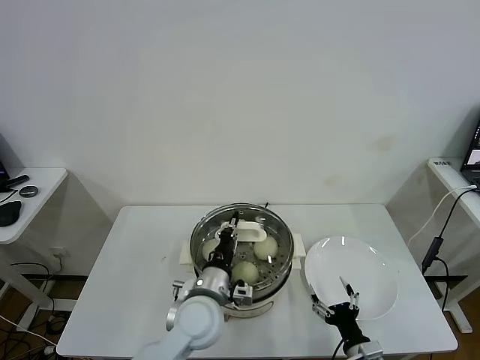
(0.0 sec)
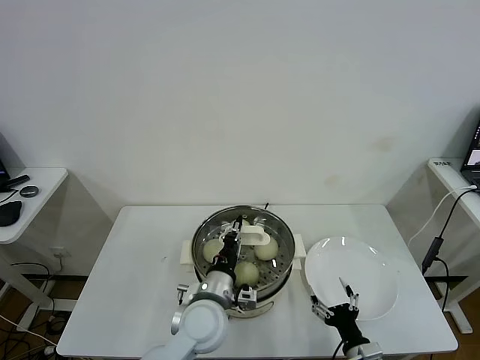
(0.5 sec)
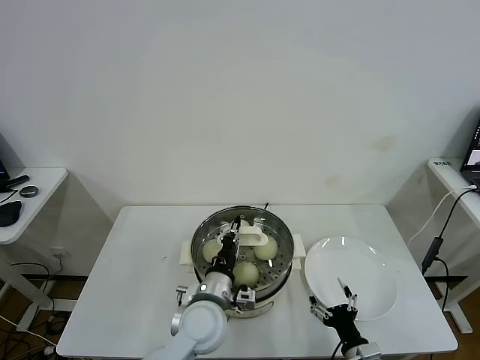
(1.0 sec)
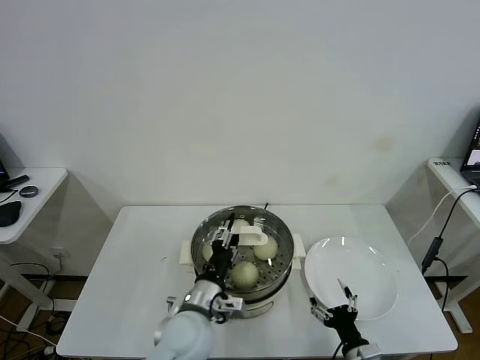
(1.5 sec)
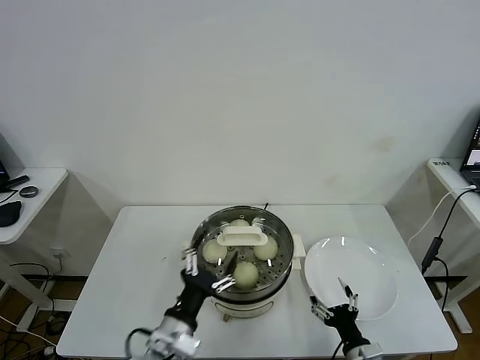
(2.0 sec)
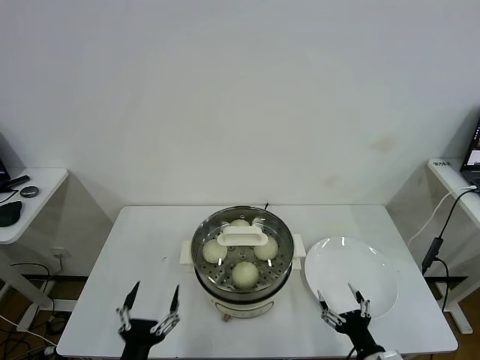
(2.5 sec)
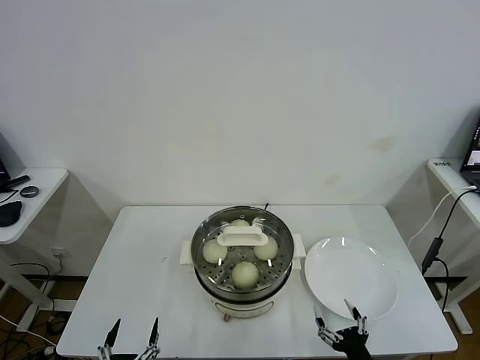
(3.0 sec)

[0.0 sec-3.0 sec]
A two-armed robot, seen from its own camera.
Task of the whole recording: take steamed baozi put them in steamer.
0.0 sec to 1.5 sec: The left gripper opens its fingers.
1.5 sec to 3.0 sec: The right gripper heads backward, covering approximately 5 cm; the left gripper shifts some 30 cm backward, to the left and downward, and opens up.

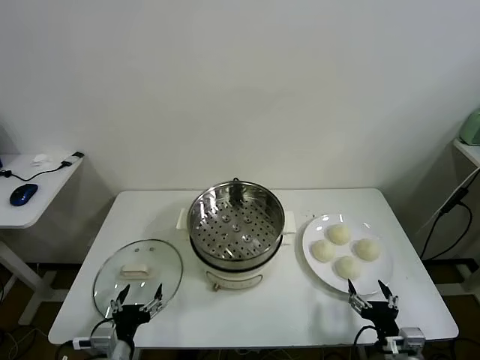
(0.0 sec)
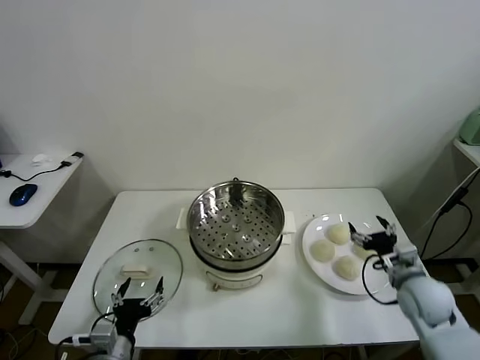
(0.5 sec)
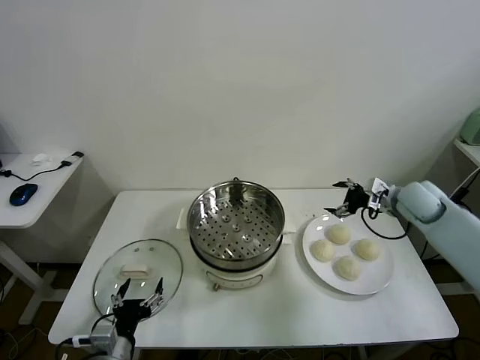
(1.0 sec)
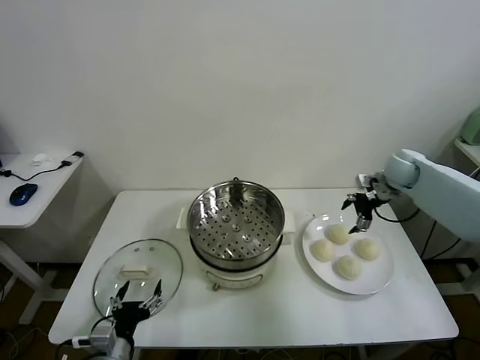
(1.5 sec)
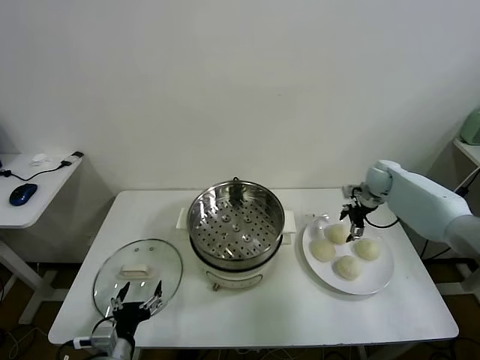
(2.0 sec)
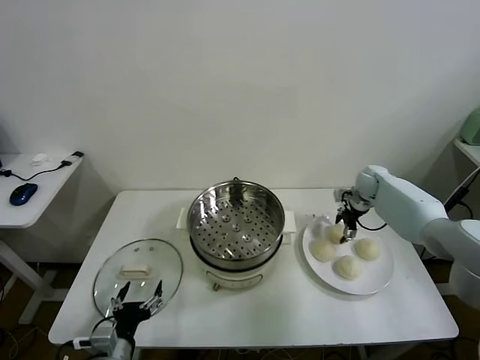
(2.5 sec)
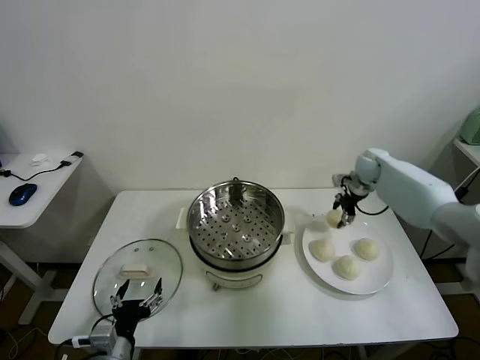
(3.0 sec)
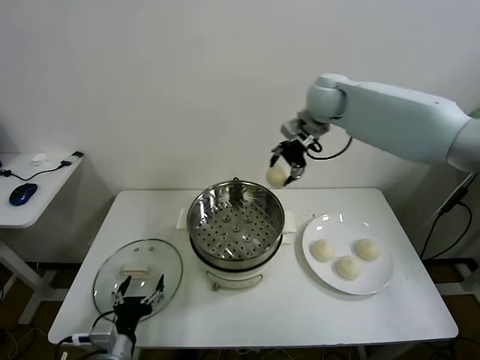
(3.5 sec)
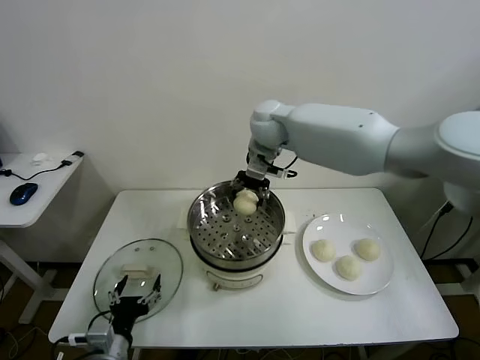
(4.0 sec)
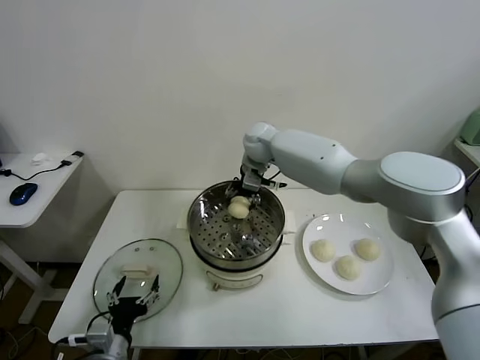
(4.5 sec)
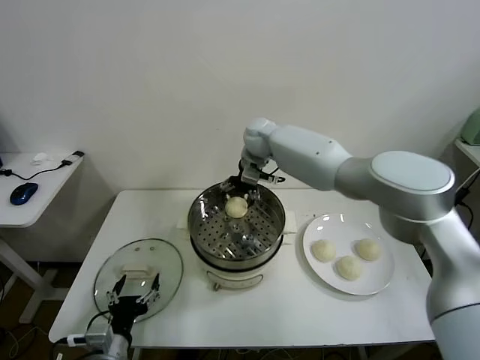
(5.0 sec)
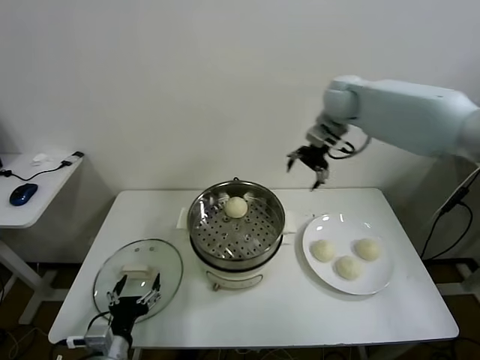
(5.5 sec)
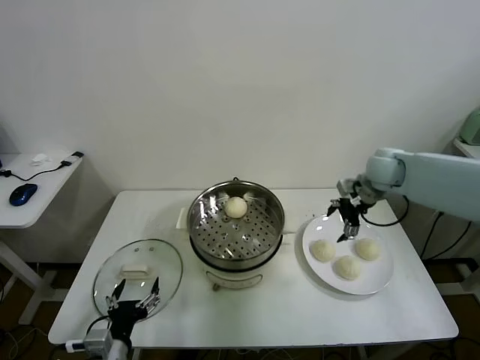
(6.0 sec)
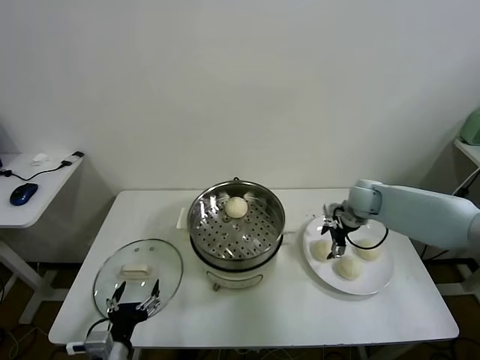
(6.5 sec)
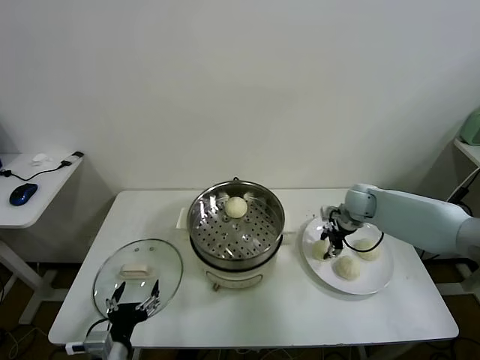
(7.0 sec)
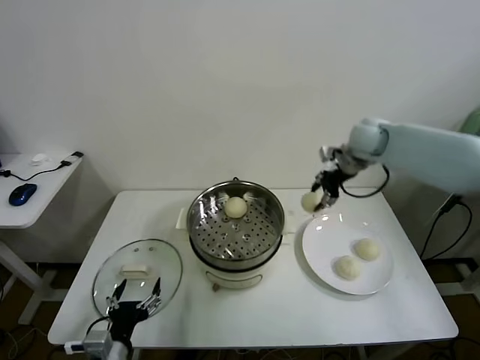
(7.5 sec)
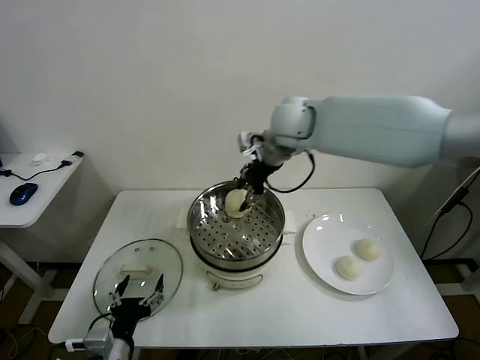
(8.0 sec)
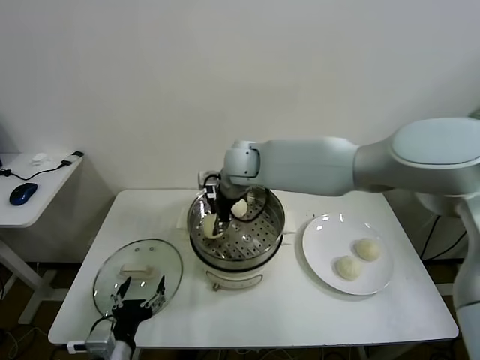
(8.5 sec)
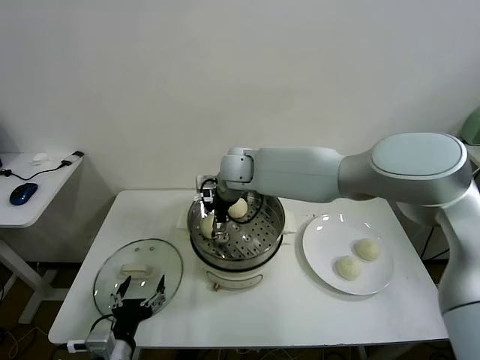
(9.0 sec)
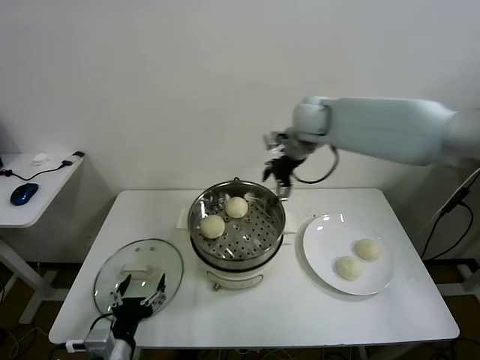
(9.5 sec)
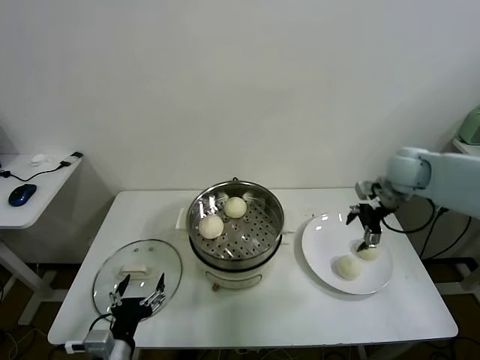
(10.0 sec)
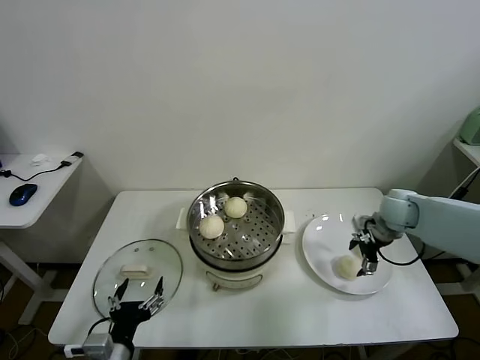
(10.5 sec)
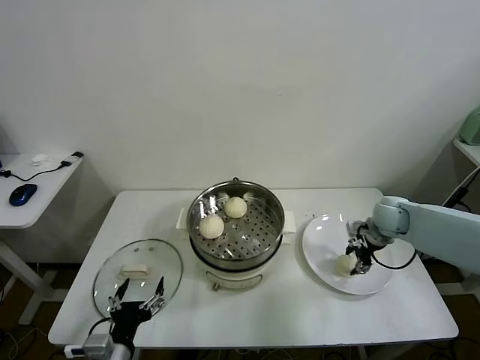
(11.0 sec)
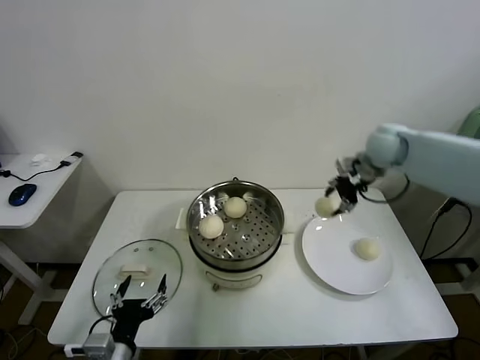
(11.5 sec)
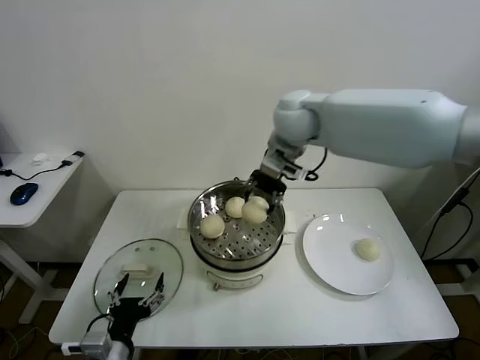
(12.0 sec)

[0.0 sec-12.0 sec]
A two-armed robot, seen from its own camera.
Task of the whole recording: take steamed baozi put them in steamer.
Step, 0.0 sec to 2.5 sec: Grasp the baozi in the plate with right gripper.
Step, 3.0 sec to 5.0 sec: Place the baozi on the steamer with right gripper.
Step, 5.5 sec to 7.0 sec: Grasp the baozi in the plate with right gripper.
Step, 7.5 sec to 9.0 sec: Place the baozi on the steamer with right gripper.
Step, 9.5 sec to 11.0 sec: Grasp the baozi in the plate with right gripper.
2.0 sec to 4.0 sec: The right gripper is displaced to the left and upward by roughly 35 cm, and closes up.
4.0 sec to 6.0 sec: The right gripper shifts approximately 30 cm to the right, and opens its fingers.
6.0 sec to 8.0 sec: The right gripper goes approximately 30 cm to the left and upward, and closes its fingers.
8.0 sec to 10.0 sec: The right gripper heads to the right, covering some 30 cm, and opens its fingers.
10.0 sec to 12.0 sec: The right gripper travels to the left and upward by approximately 30 cm, and closes up.

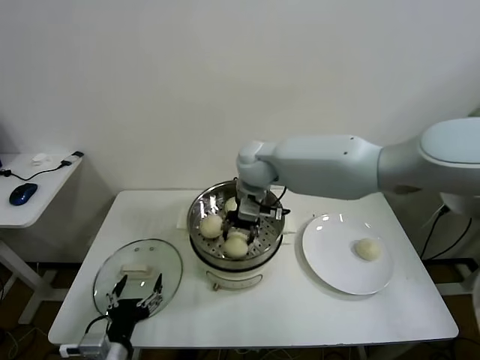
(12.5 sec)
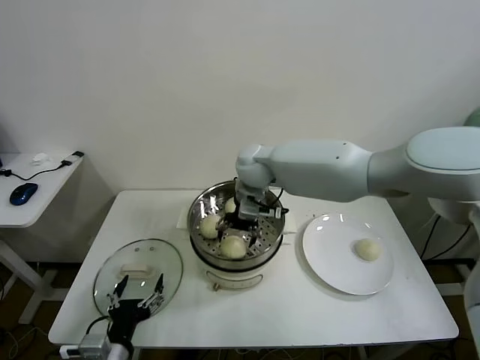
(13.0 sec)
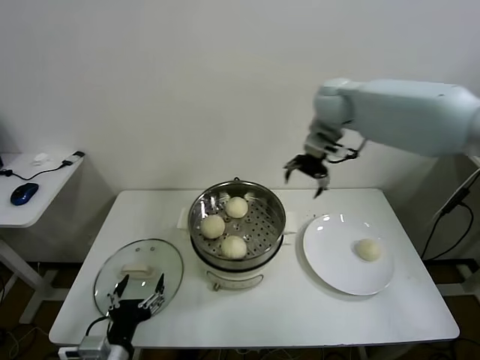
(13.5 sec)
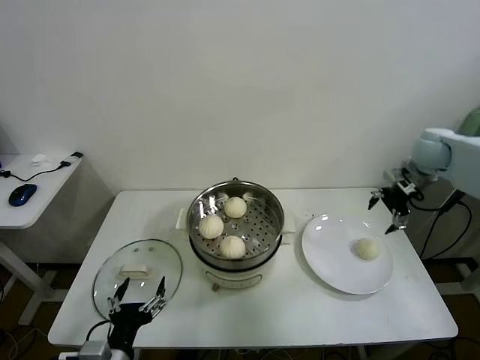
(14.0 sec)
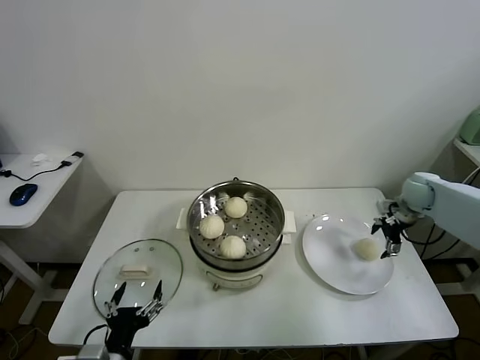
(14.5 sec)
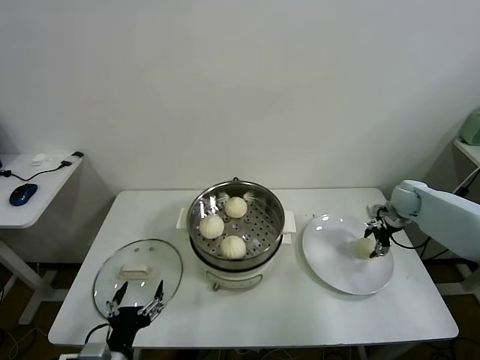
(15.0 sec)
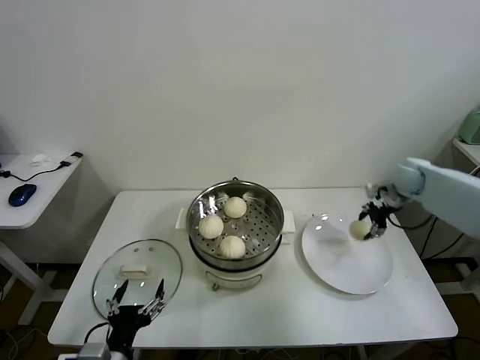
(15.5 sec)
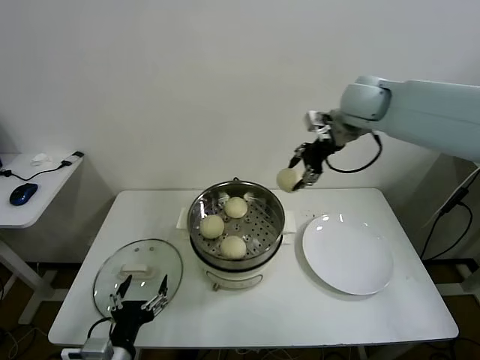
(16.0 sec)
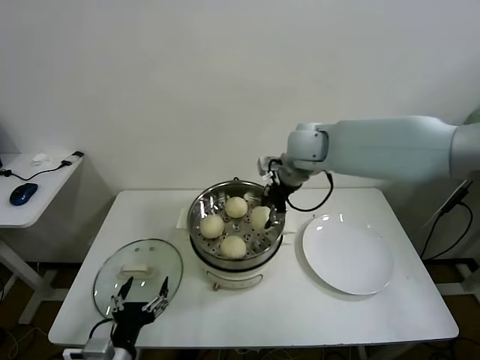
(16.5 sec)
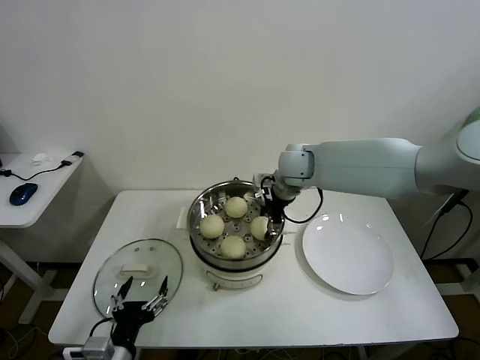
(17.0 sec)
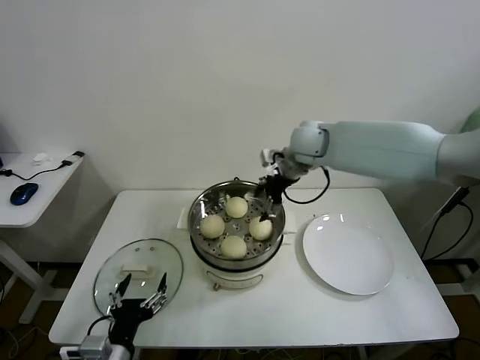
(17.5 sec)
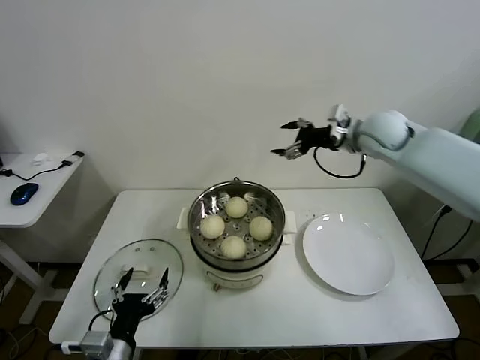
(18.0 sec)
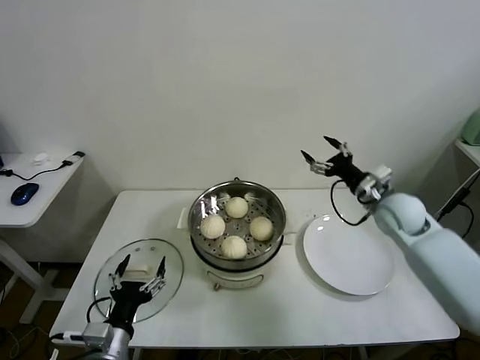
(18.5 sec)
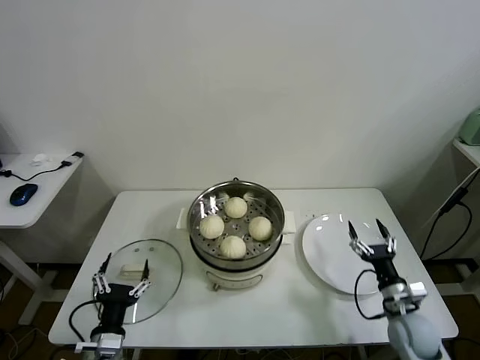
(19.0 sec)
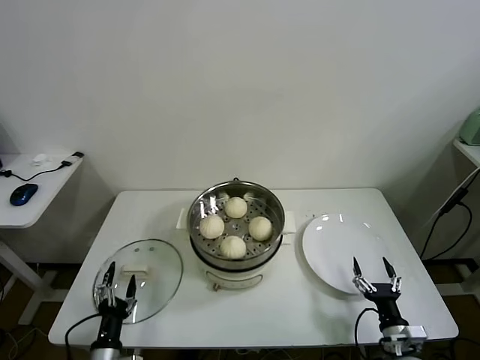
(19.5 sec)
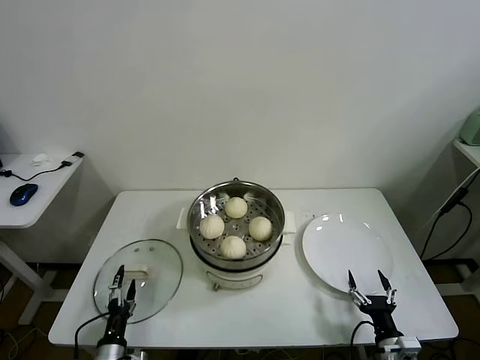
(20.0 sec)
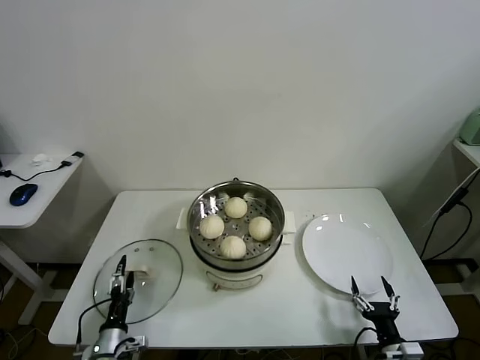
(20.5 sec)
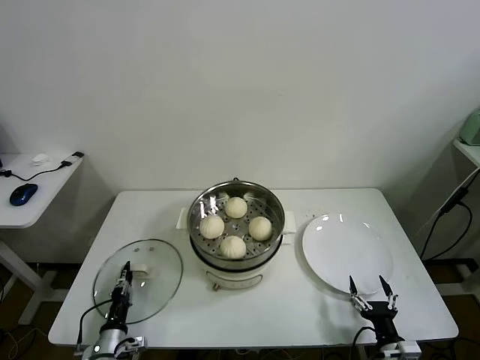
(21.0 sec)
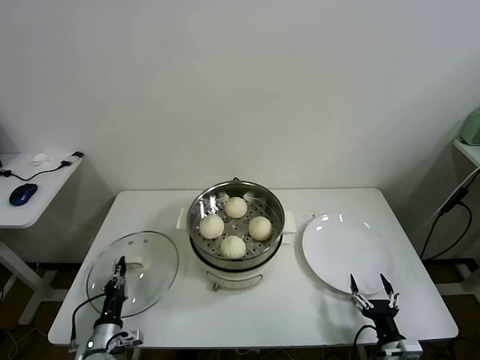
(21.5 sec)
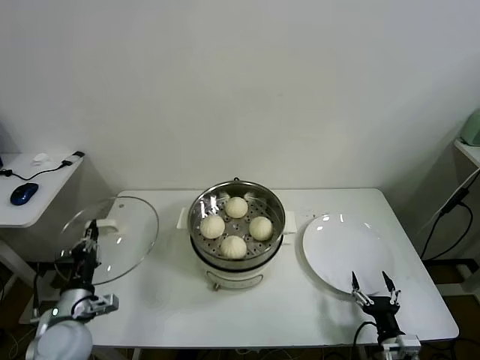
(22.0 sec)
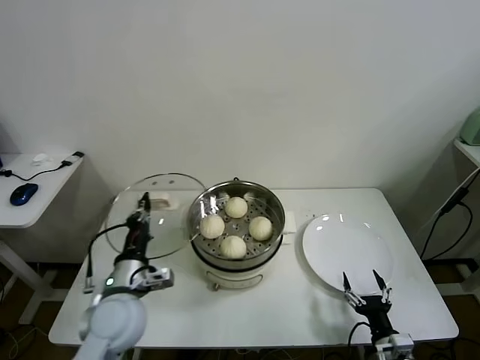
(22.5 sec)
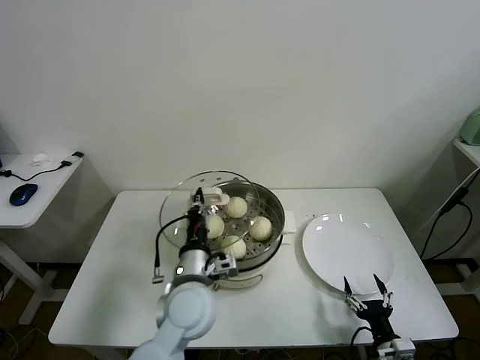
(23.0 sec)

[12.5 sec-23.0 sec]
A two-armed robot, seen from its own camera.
Task of the whole recording: take steamed baozi put them in steamer.
Step, 13.5 sec to 15.0 sec: Grasp the baozi in the plate with right gripper.
Step, 15.5 sec to 17.0 sec: Place the baozi on the steamer with right gripper.
Step, 17.5 sec to 21.0 sec: Grasp the pot lid with left gripper.
12.5 sec to 14.5 sec: The right gripper moves to the right, some 40 cm, and opens.
14.5 sec to 16.5 sec: The right gripper shifts some 35 cm to the left and upward, and closes its fingers.
16.5 sec to 19.0 sec: The right gripper goes up and down, roughly 35 cm each way, reversing 2 times, and opens up; the left gripper changes place by some 5 cm.
19.0 sec to 21.0 sec: The left gripper travels downward and to the left by about 15 cm, and closes its fingers. Meanwhile the right gripper goes some 10 cm backward.
21.0 sec to 23.0 sec: The left gripper shifts some 35 cm upward and to the right, and closes.
